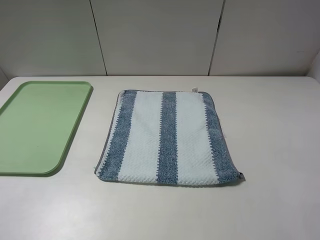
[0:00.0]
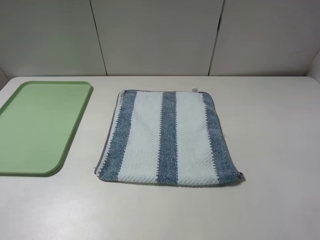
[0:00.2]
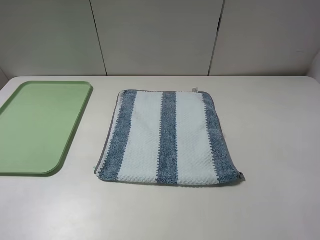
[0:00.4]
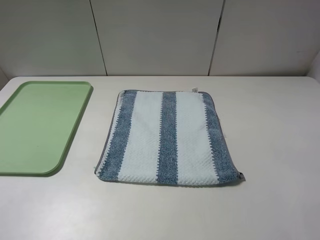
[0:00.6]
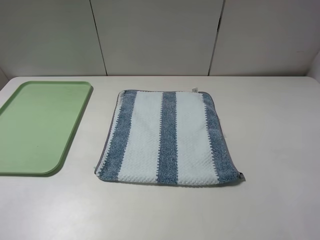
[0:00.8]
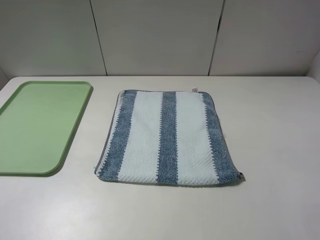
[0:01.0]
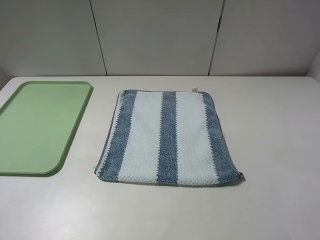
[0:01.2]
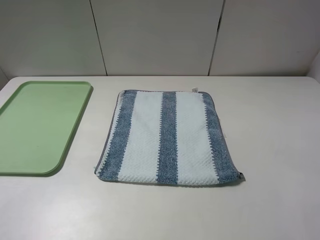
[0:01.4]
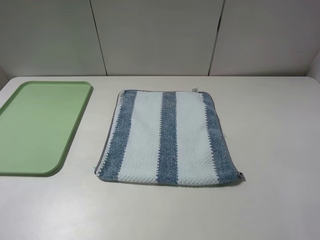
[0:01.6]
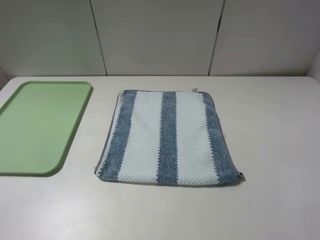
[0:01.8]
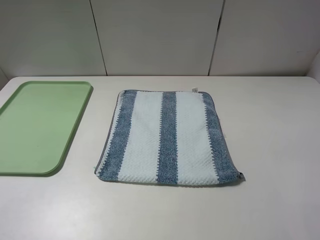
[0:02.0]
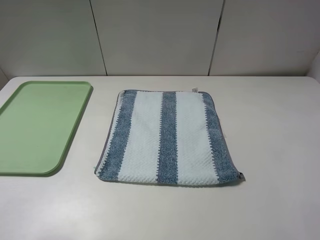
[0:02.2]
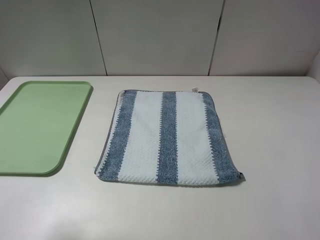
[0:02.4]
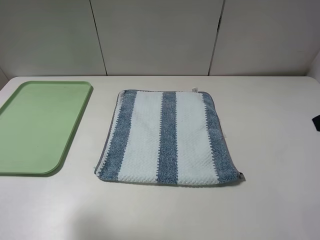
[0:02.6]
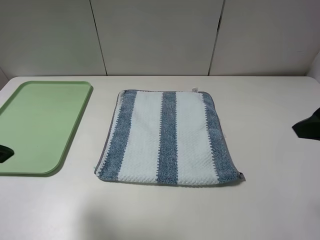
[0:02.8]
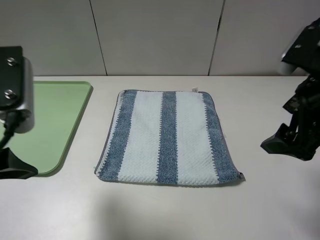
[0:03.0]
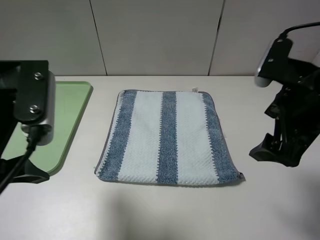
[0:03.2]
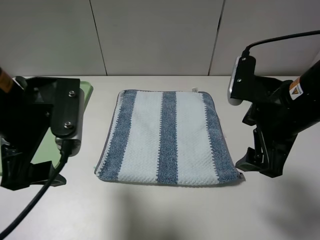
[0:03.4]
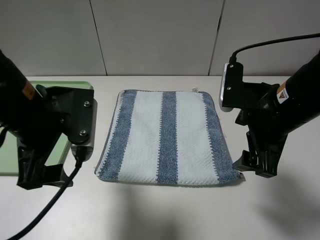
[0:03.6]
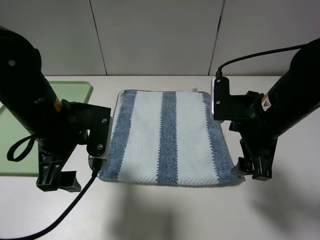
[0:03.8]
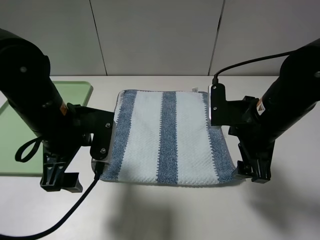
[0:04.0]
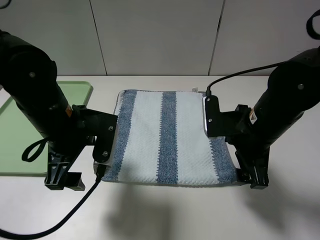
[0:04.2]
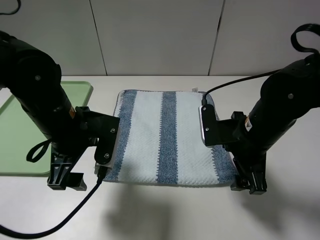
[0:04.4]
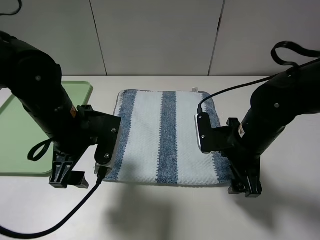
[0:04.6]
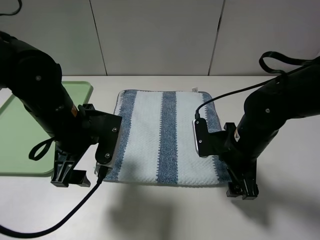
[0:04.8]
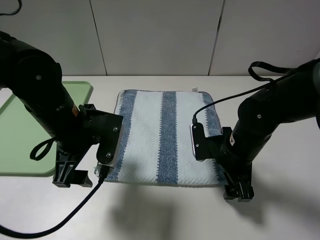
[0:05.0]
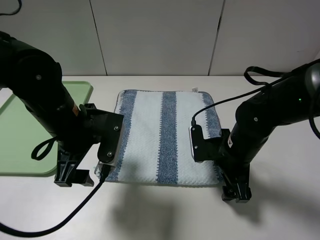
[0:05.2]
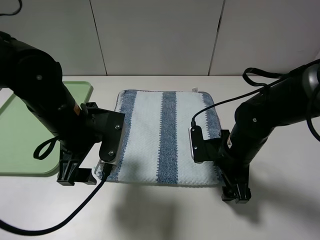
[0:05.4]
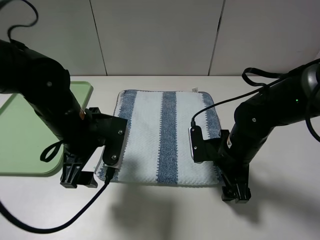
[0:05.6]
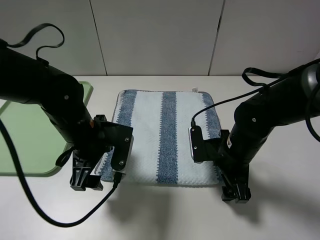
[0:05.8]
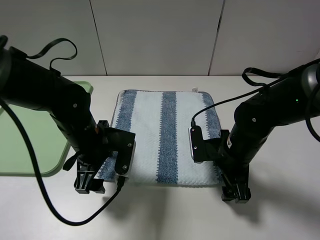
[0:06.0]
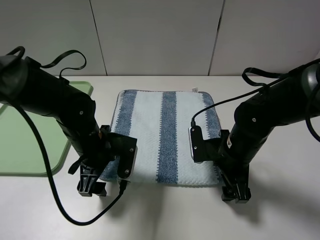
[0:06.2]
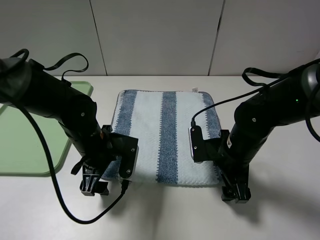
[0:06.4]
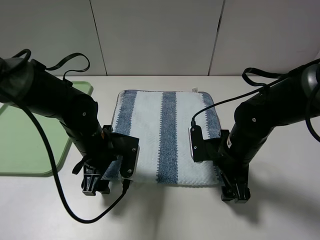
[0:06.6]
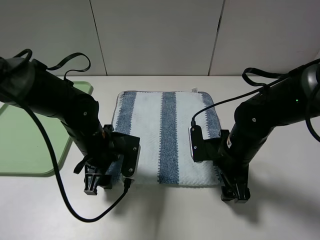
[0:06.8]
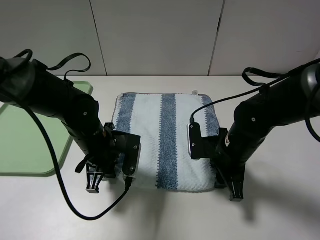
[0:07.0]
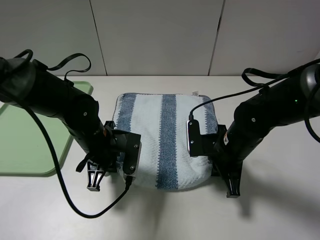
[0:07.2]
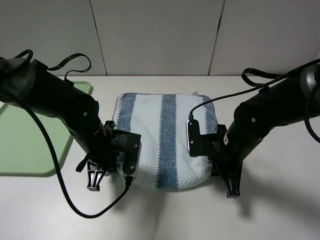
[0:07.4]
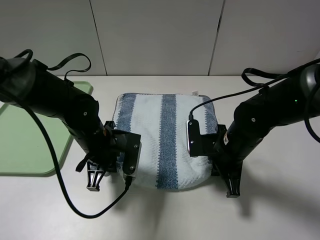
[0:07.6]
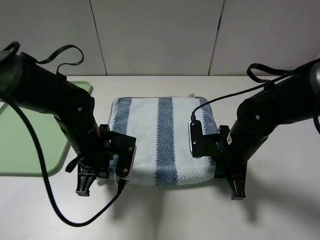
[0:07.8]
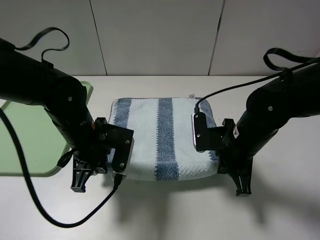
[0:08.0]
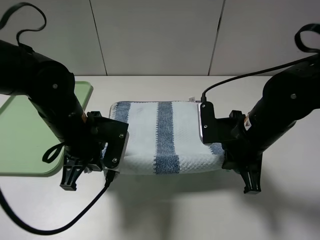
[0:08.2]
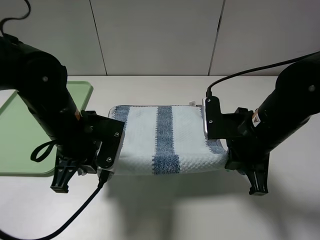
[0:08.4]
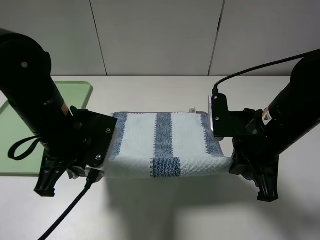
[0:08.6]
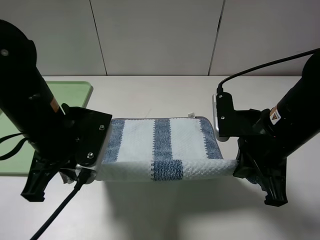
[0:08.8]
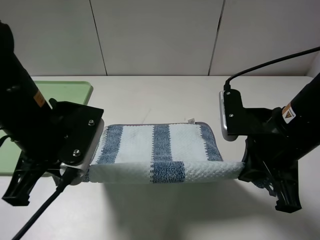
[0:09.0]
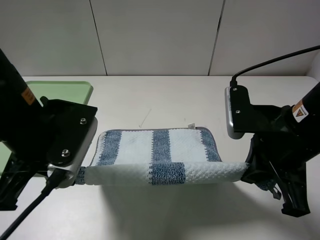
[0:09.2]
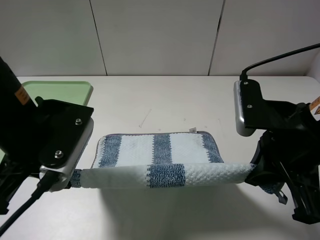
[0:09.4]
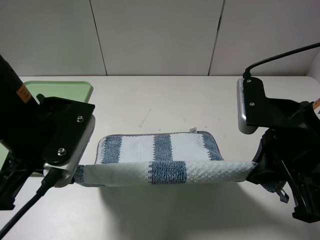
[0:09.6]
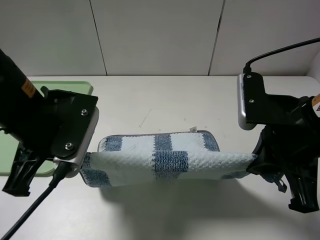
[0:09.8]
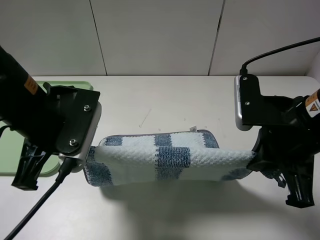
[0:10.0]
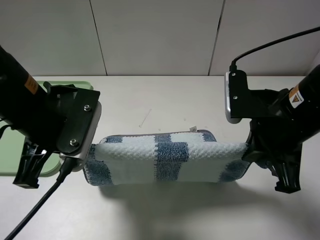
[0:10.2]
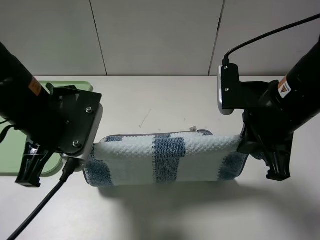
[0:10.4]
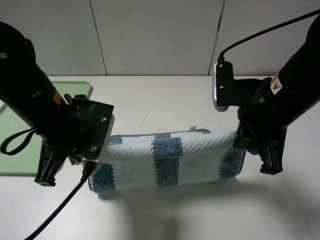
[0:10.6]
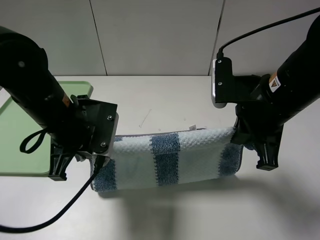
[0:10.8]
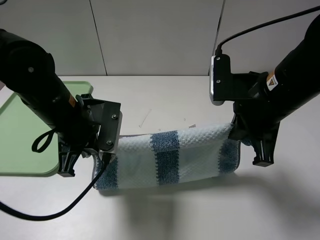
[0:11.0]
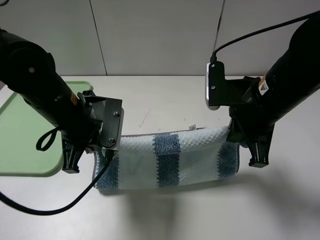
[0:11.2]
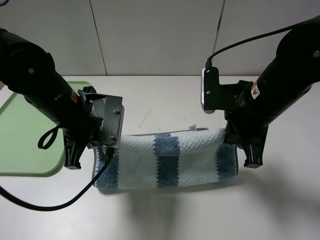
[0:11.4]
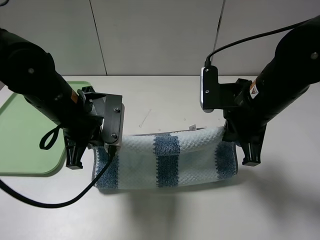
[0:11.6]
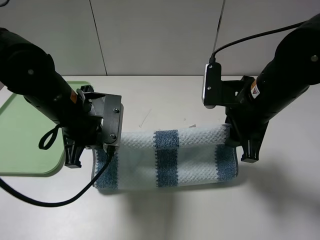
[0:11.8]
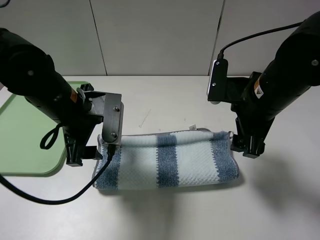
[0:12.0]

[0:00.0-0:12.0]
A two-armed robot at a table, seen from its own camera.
Step, 0:00.0 to 0:08.0: Grasp the blue white towel with the left gripper.
0:00.0 to 0:01.6: Neither gripper changes place.
0:01.6 to 0:03.0: The right gripper goes about 20 cm forward and to the left, while the left gripper heads forward and to the right, covering approximately 20 cm.
0:03.0 to 0:04.4: The left gripper shifts some 15 cm downward, to the right and forward. The right gripper travels downward and to the left by roughly 15 cm.
0:04.4 to 0:06.0: Both grippers travel together downward, roughly 5 cm.
0:06.0 to 0:07.6: The left gripper closes up, while the right gripper closes its fingers.
0:07.6 to 0:09.0: Both grippers travel together upward and backward, approximately 15 cm.
0:10.4 to 0:12.0: The right gripper opens its fingers, while the left gripper shifts by approximately 5 cm, and opens up.

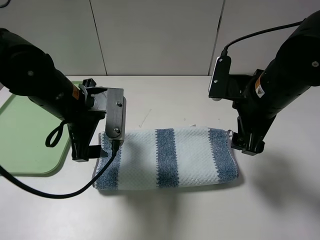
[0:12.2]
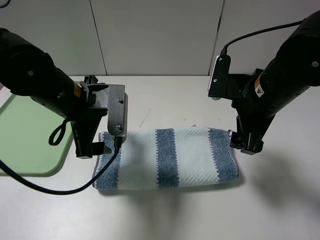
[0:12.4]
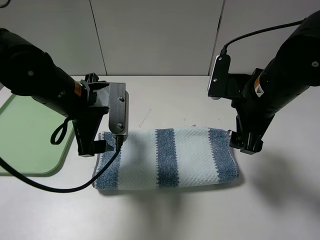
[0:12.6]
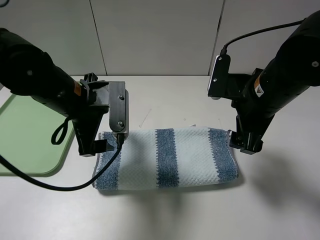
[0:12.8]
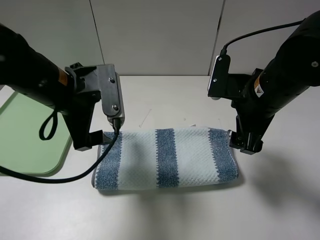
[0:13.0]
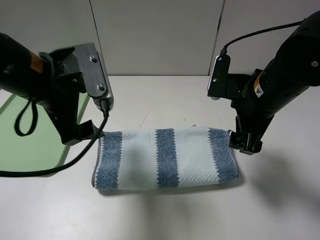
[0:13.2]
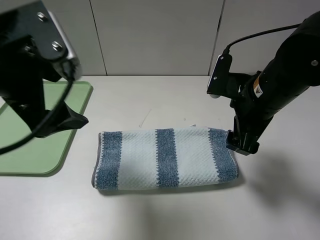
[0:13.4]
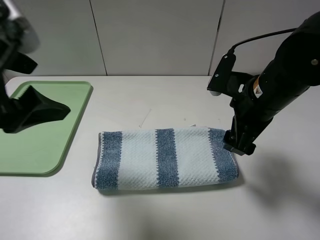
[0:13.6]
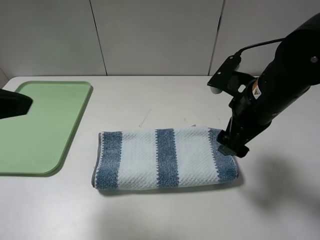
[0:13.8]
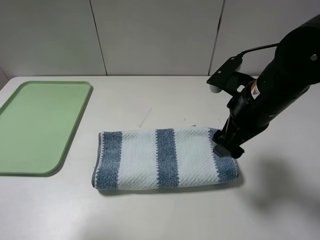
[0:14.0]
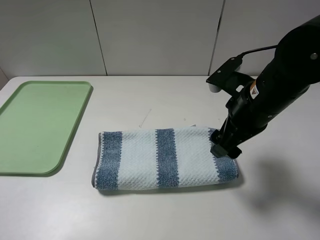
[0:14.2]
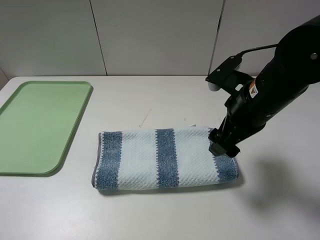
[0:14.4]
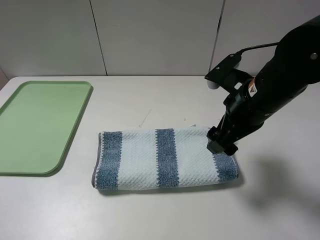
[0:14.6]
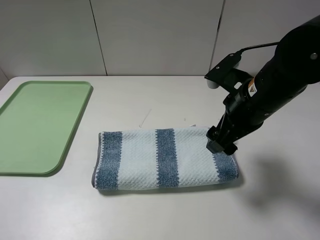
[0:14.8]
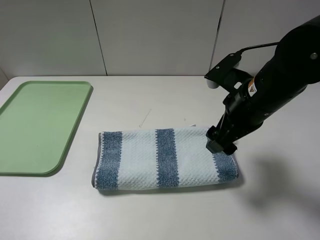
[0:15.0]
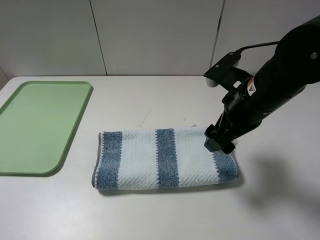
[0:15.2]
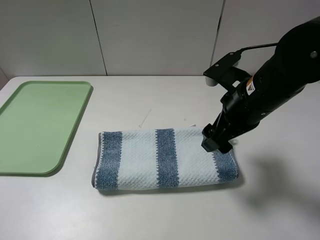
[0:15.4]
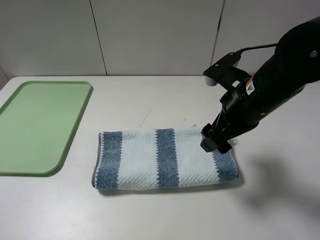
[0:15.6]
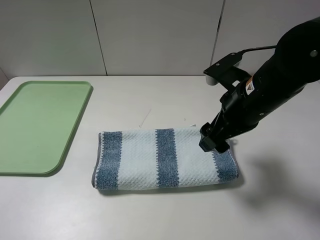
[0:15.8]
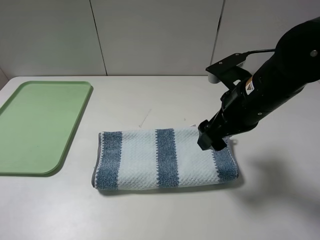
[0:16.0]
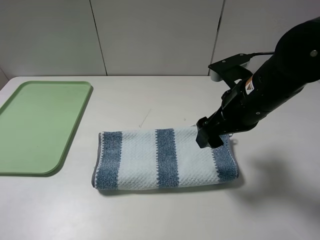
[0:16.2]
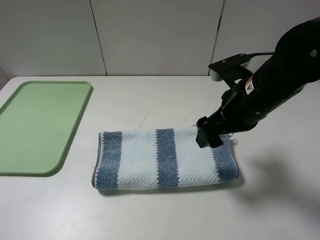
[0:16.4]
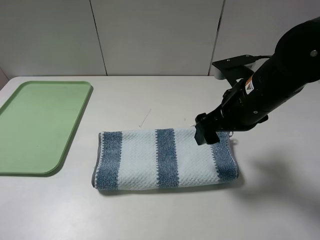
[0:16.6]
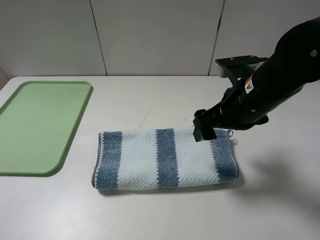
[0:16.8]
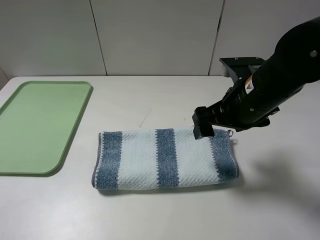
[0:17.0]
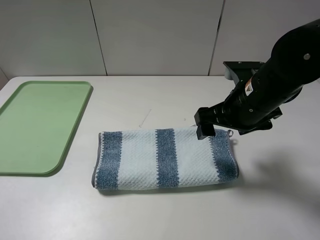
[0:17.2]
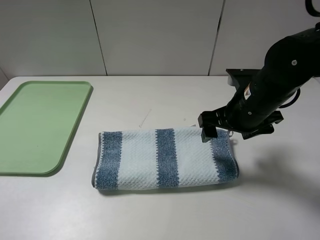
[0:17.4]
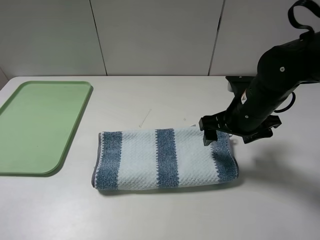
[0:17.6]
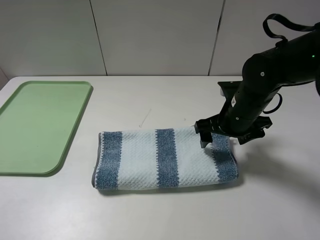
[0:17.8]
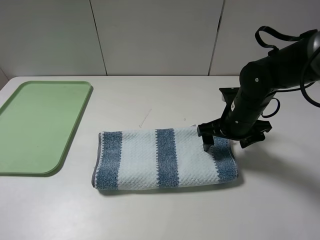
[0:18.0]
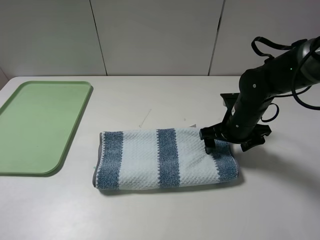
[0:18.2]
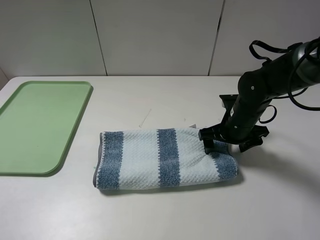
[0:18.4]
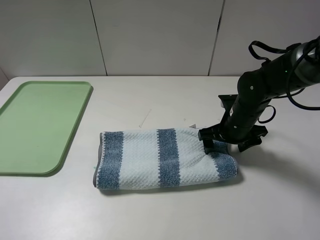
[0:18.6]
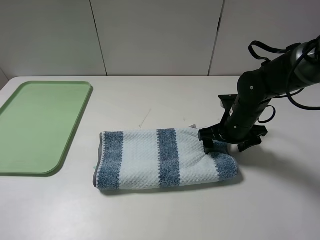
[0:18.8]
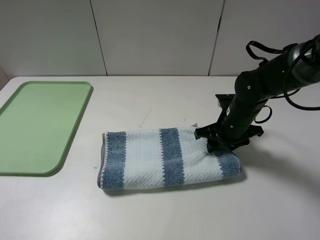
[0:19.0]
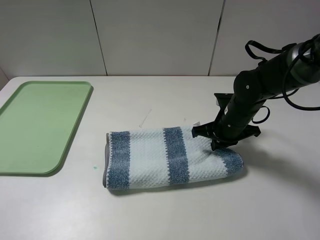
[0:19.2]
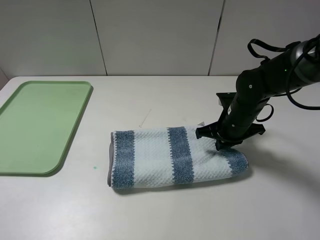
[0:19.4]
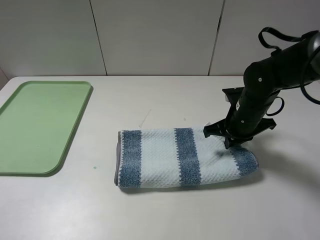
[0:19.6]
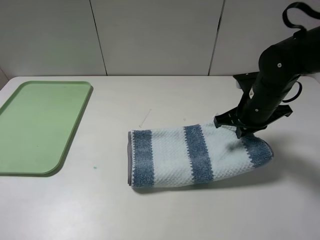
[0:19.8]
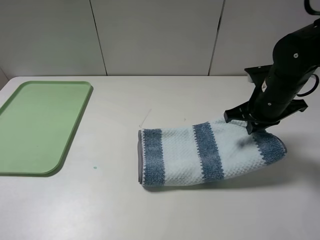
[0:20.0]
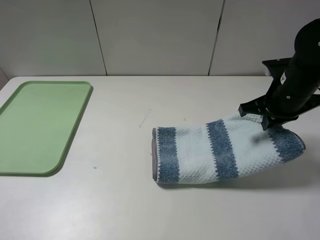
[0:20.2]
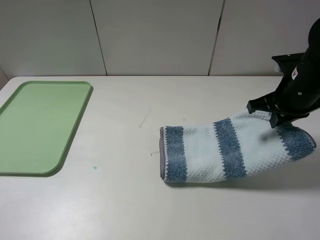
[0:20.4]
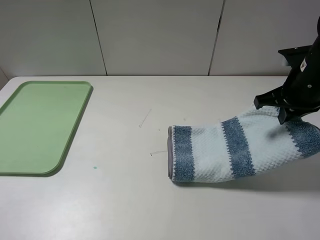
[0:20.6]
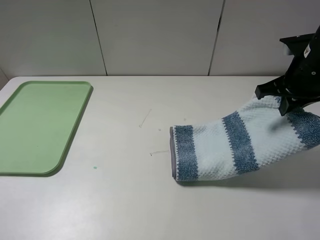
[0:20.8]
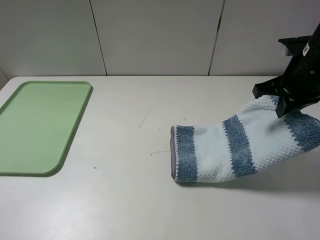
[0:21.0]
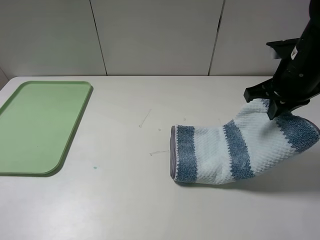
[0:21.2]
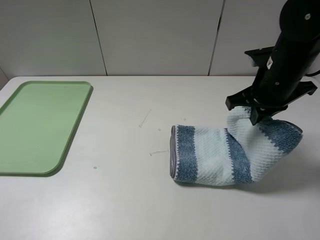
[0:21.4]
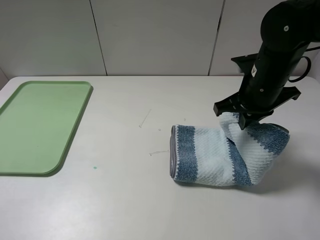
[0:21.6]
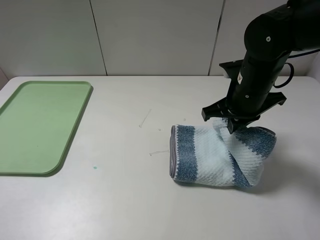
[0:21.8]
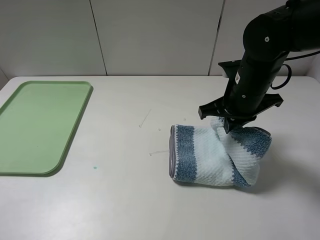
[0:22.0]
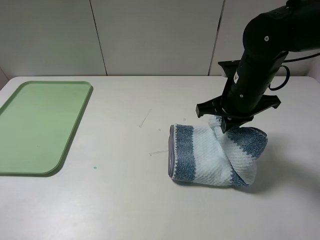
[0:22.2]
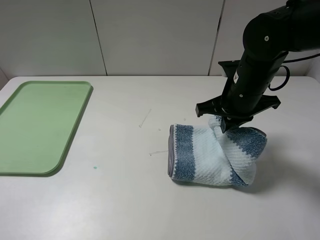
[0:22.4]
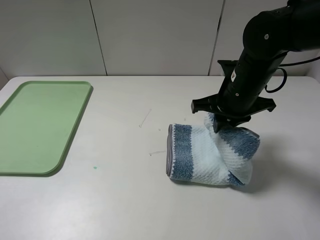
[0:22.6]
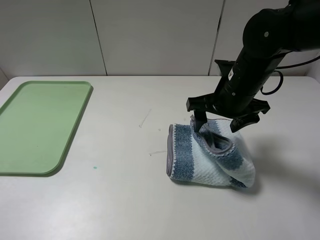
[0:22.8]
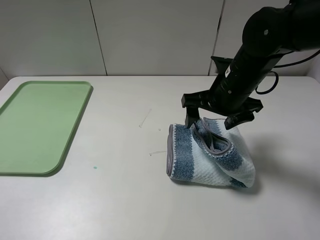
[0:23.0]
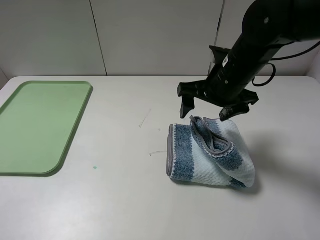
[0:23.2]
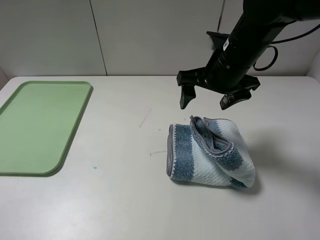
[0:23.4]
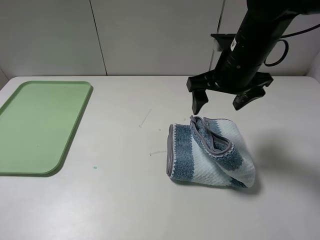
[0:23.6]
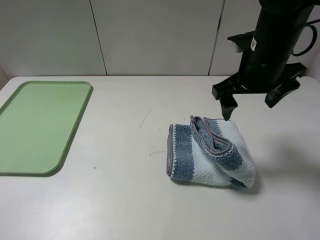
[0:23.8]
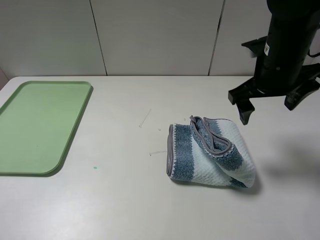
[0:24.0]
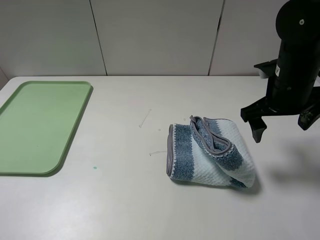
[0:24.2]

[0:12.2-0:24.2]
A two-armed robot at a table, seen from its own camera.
Step, 0:12.6 to 0:20.0: Grasp the blue white towel with the right gripper.
0:12.2 to 0:13.8: The left gripper is displaced upward, backward and to the left by some 25 cm.
0:13.8 to 0:15.2: The left gripper moves backward, downward and to the left, roughly 15 cm.
0:16.6 to 0:18.2: The right gripper goes about 15 cm downward and forward.
0:18.2 to 0:19.8: The right gripper goes about 5 cm upward, and closes up.
0:19.8 to 0:21.2: The right gripper shifts some 5 cm upward.
0:21.2 to 0:22.6: The right gripper goes some 10 cm to the left, and opens.
0:22.6 to 0:24.2: The right gripper heads to the right, covering roughly 5 cm, and opens its fingers.
